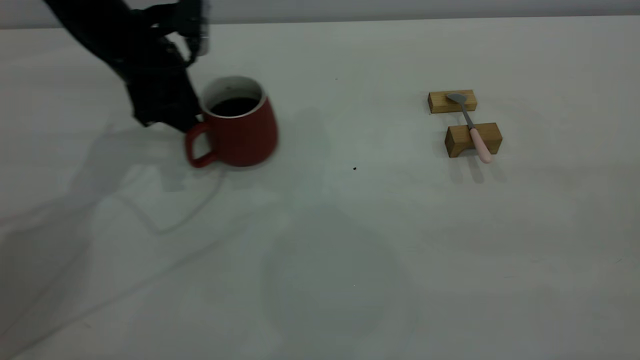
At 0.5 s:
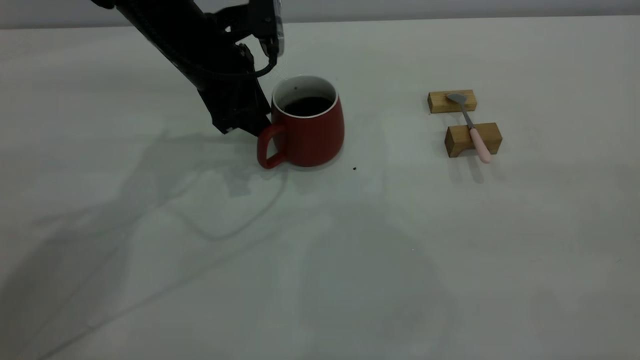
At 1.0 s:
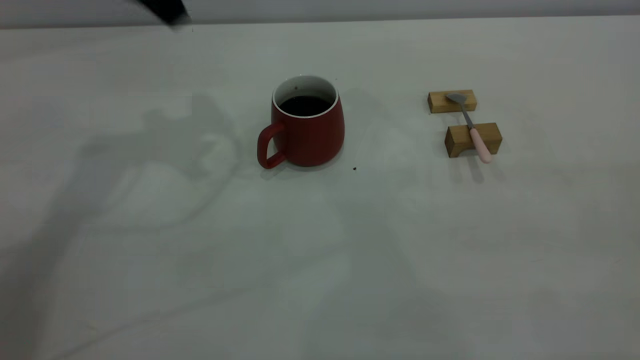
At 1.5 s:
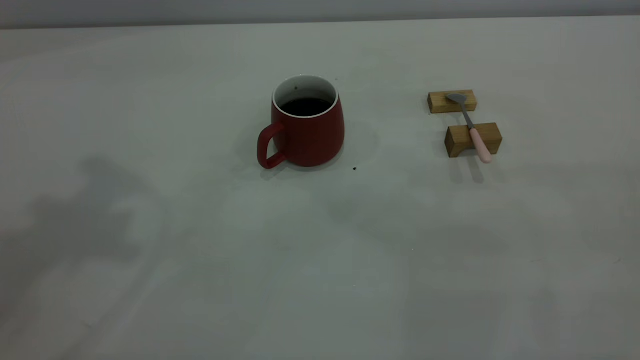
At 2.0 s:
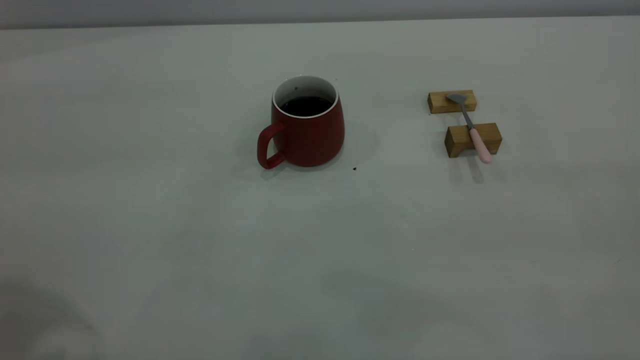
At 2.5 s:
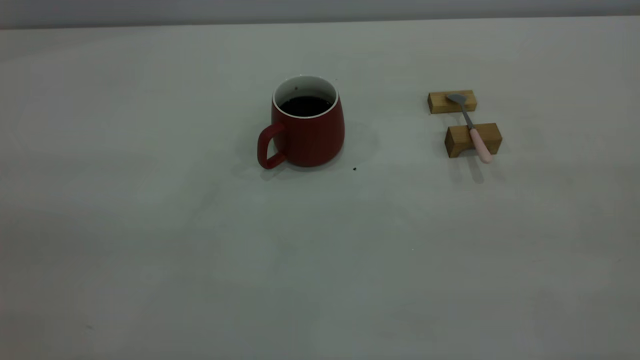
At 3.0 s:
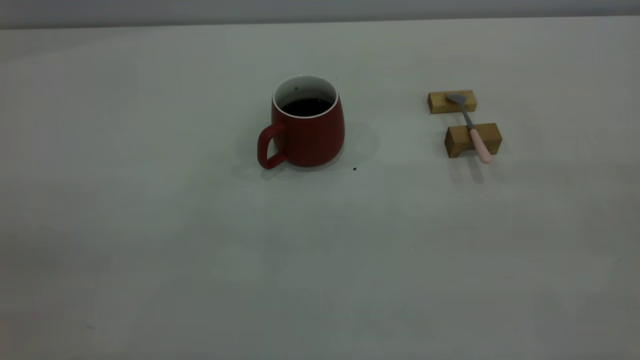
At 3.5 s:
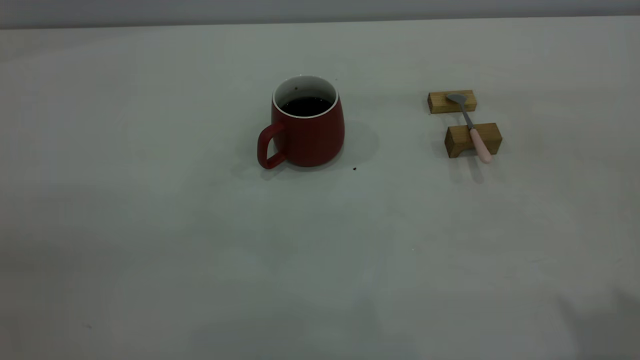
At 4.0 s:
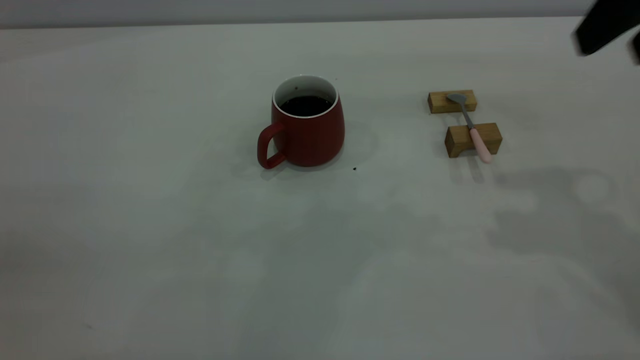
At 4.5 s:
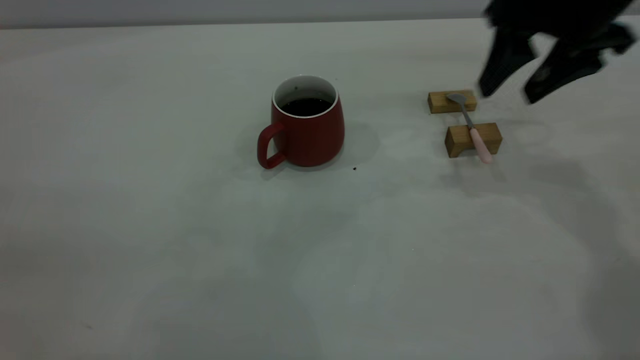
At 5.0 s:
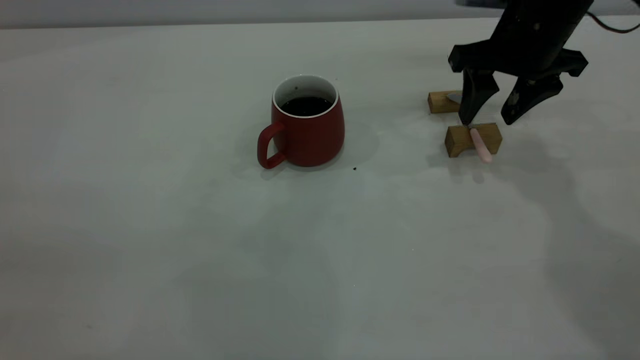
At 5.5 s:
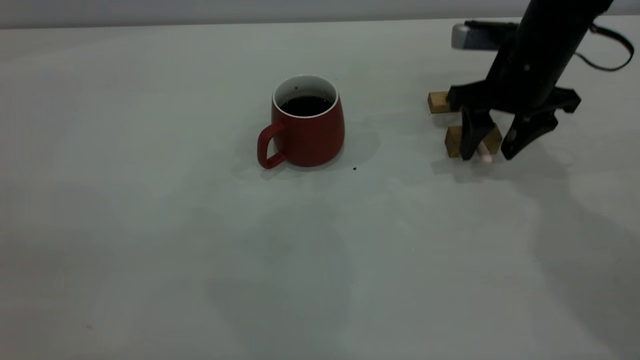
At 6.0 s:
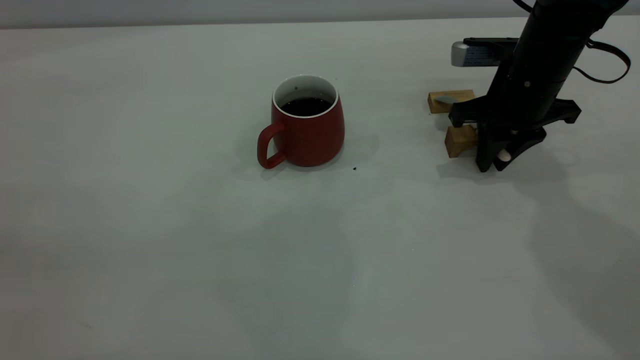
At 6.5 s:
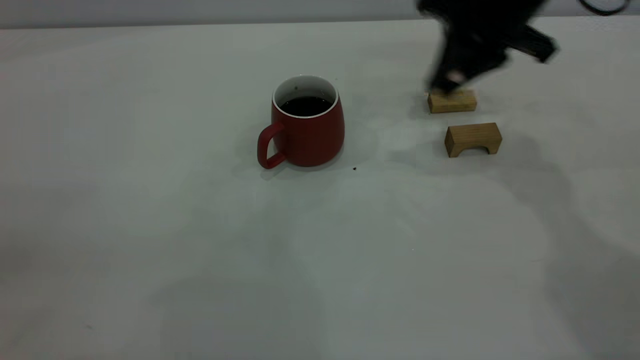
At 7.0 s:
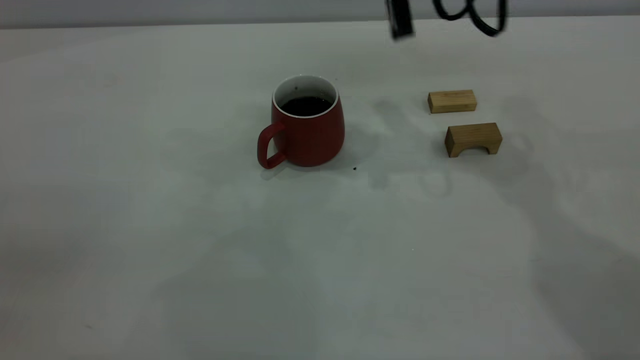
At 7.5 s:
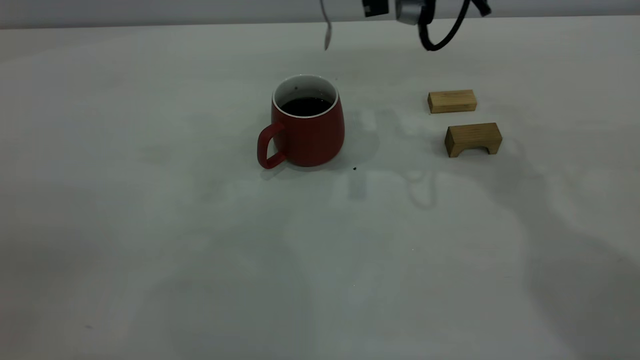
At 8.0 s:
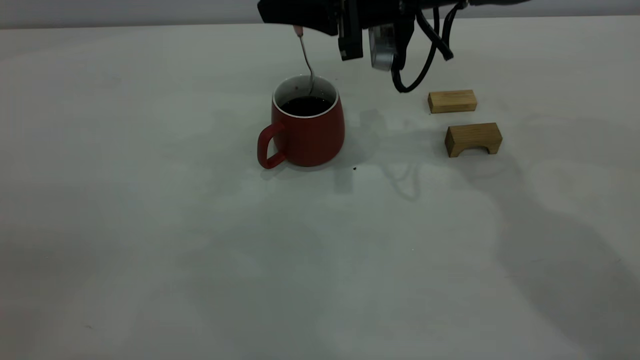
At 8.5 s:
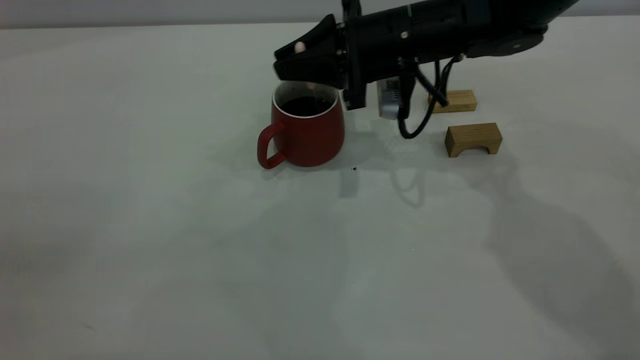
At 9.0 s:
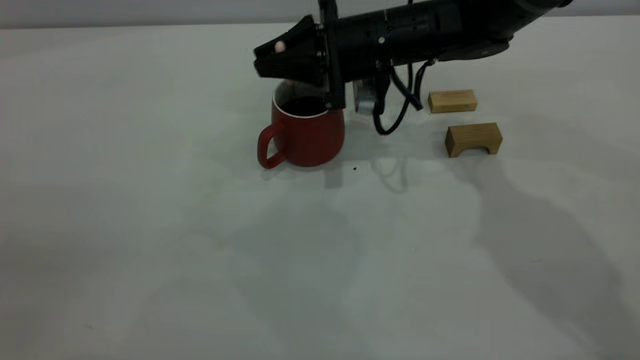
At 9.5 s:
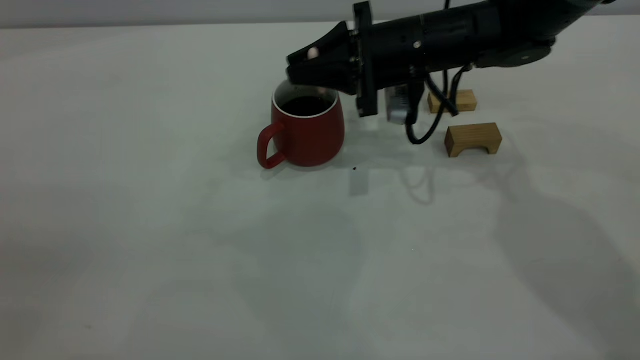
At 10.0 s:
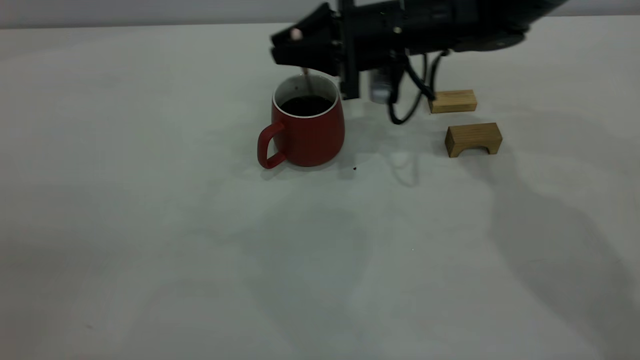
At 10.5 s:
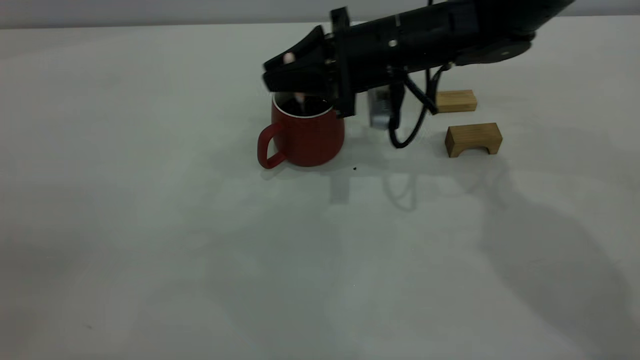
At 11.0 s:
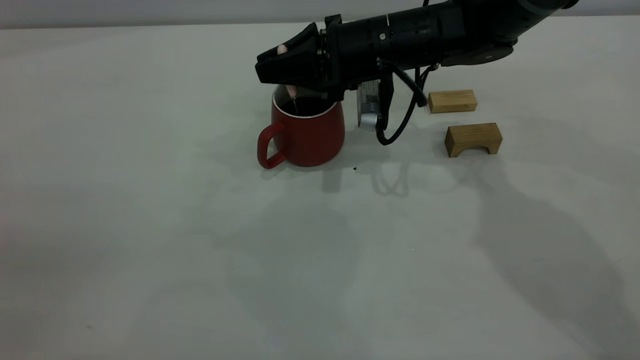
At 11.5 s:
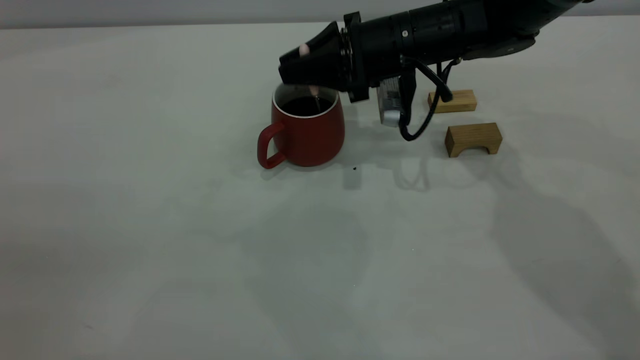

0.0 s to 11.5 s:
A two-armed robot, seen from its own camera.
Step, 1.0 to 6.0 s: Pick up the spoon.
0.0 to 2.0 s: The left gripper heads backward and upward, covering some 40 cm.
2.0 to 4.0 s: The right gripper heads forward, covering approximately 30 cm, and opens its fingers.
4.0 to 6.0 s: The right gripper is displaced downward and forward by roughly 25 cm, and closes its fingers.
6.0 to 7.5 s: The right gripper heads upward and to the left, covering about 20 cm.
7.5 to 9.5 s: The right gripper shifts some 10 cm downward.
9.5 to 11.5 s: The grippers move only a little.

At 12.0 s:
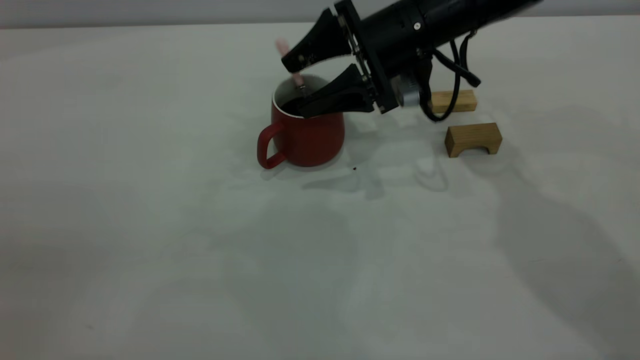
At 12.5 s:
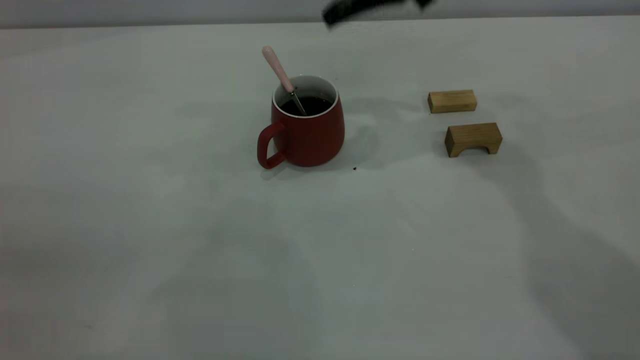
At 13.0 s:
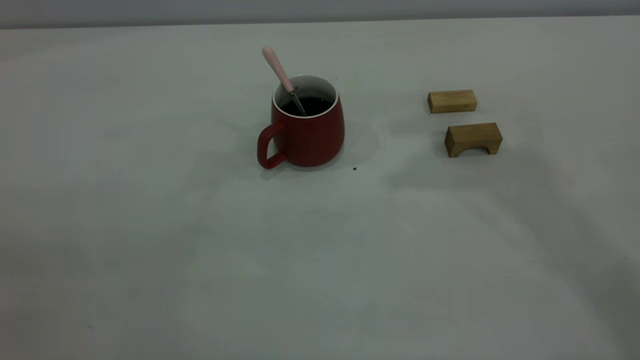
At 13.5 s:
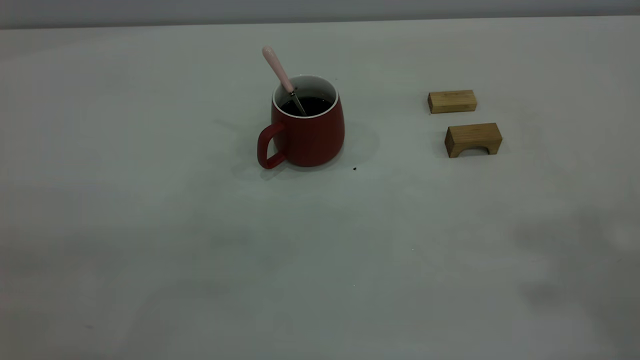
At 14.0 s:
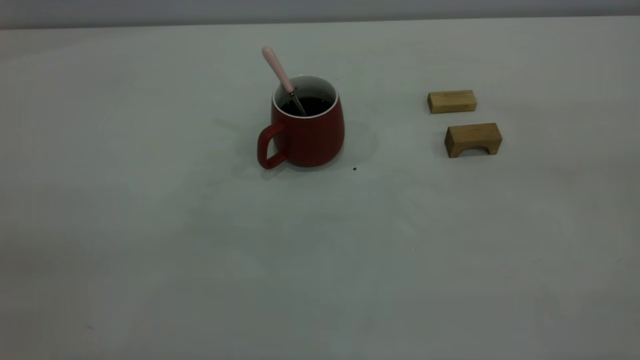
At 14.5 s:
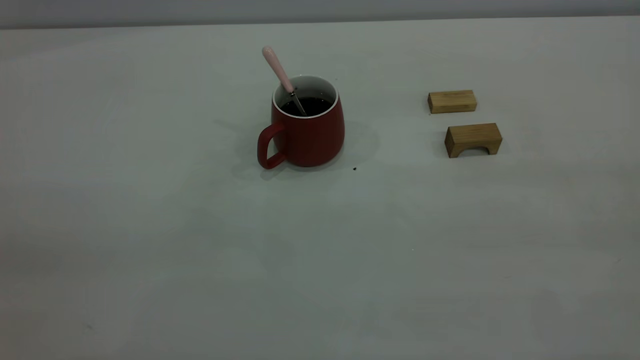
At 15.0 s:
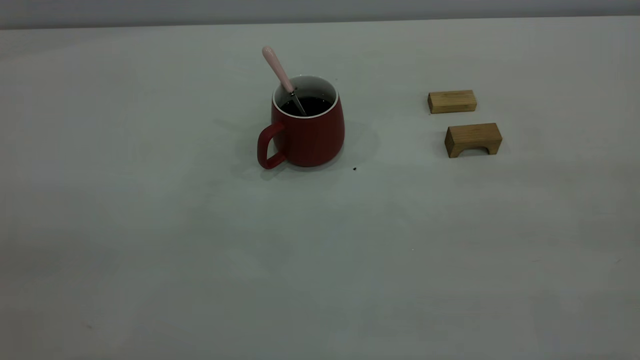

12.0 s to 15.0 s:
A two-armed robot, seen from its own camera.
12.0 to 13.5 s: The right gripper moves upward, backward and to the right, some 50 cm, and closes up.
